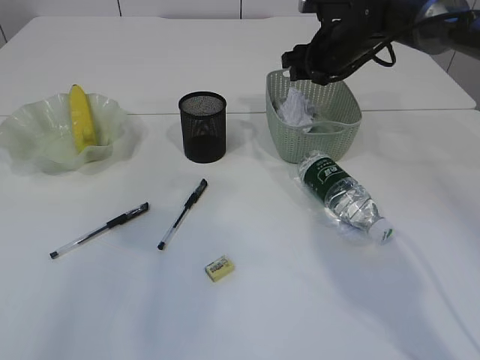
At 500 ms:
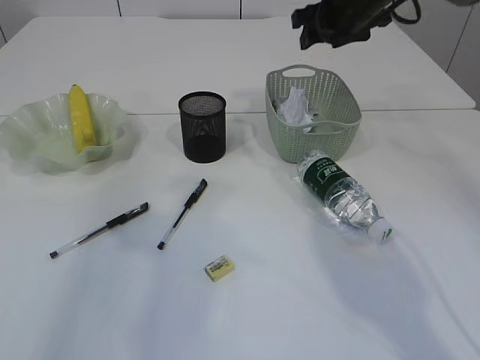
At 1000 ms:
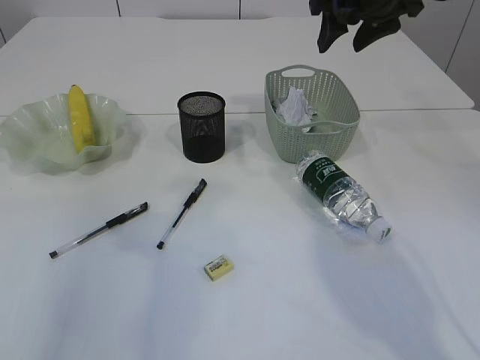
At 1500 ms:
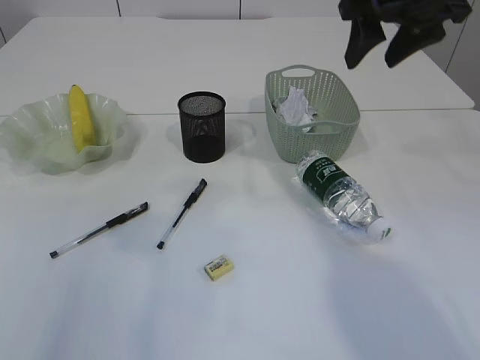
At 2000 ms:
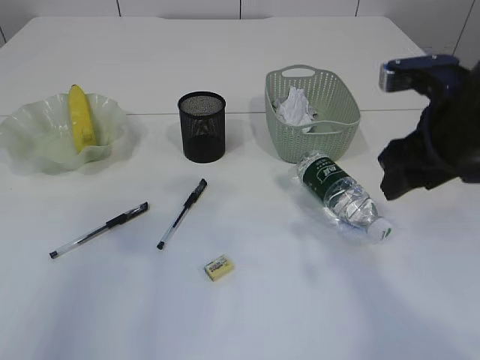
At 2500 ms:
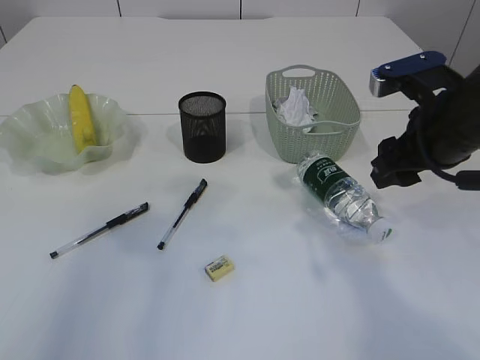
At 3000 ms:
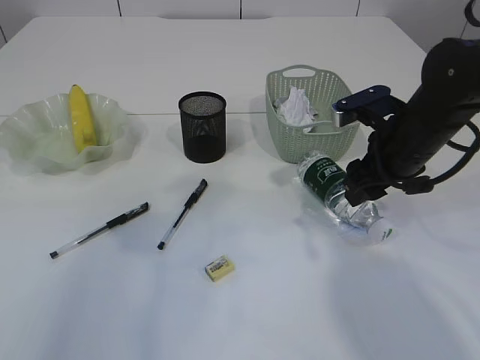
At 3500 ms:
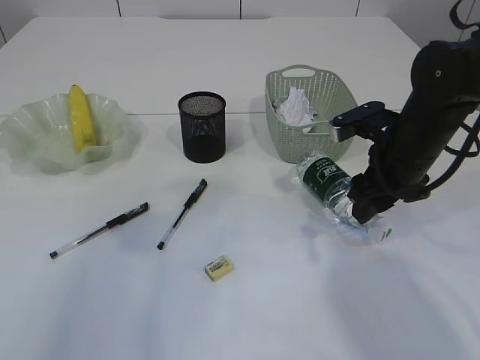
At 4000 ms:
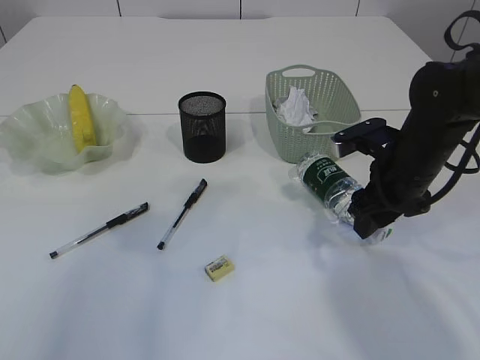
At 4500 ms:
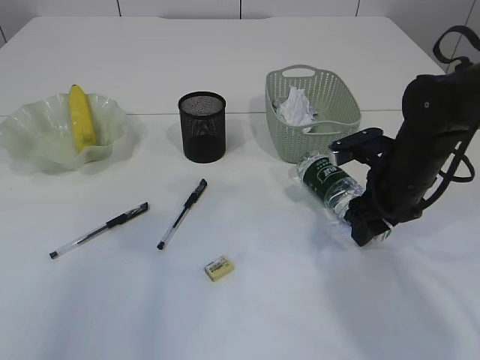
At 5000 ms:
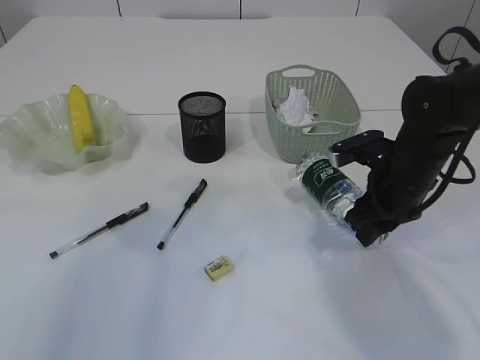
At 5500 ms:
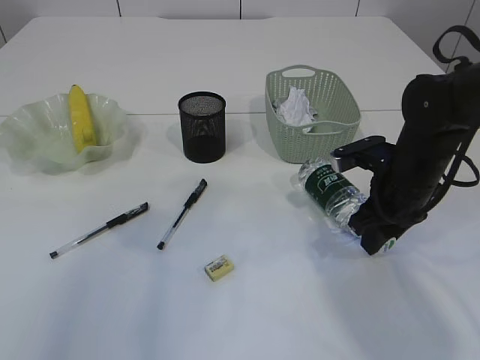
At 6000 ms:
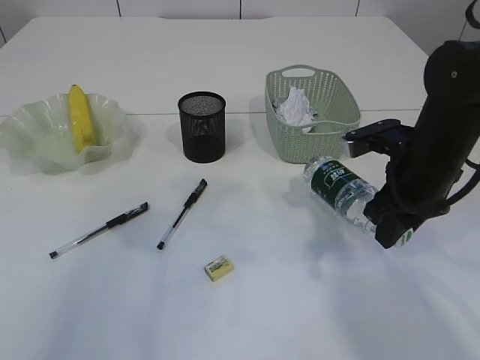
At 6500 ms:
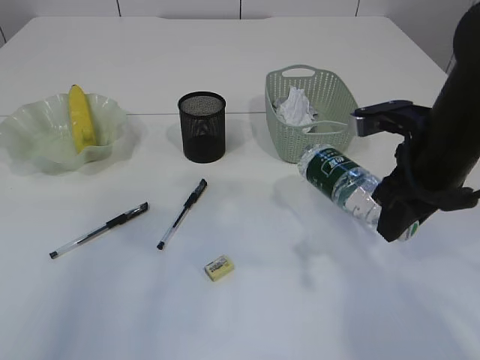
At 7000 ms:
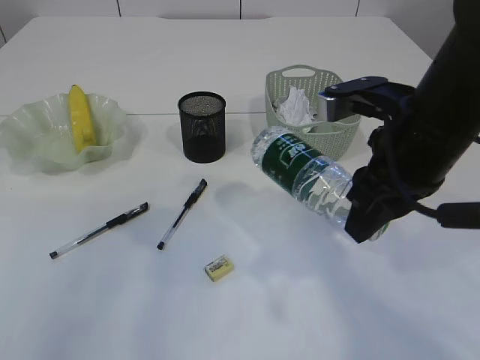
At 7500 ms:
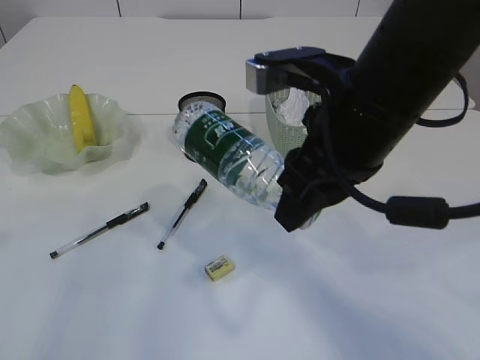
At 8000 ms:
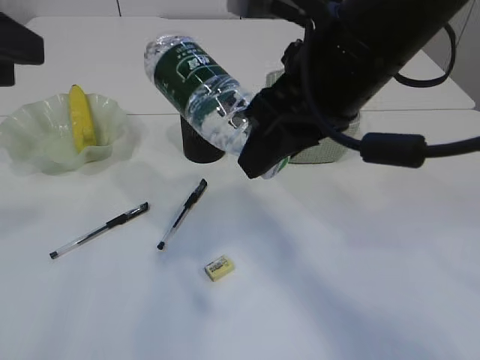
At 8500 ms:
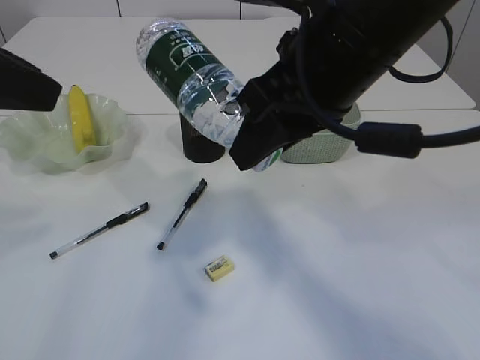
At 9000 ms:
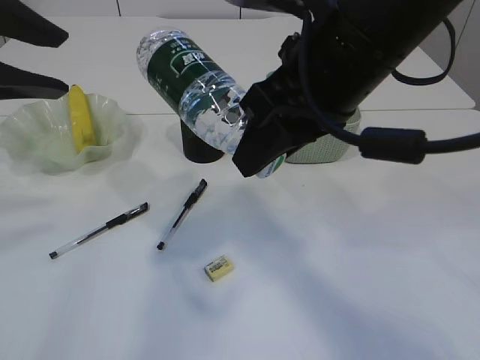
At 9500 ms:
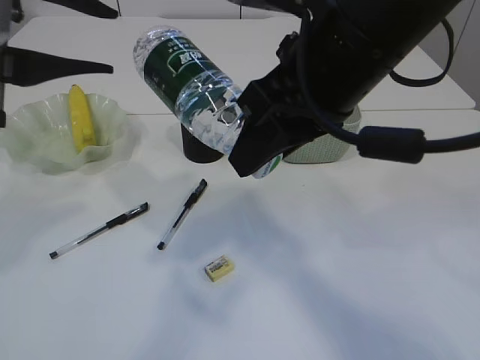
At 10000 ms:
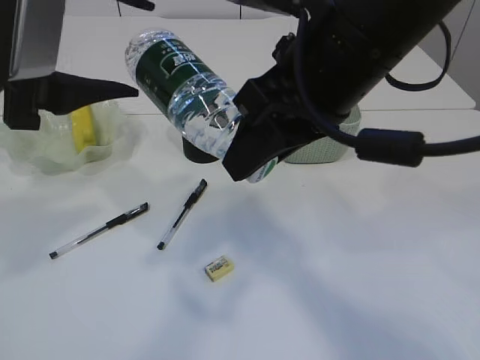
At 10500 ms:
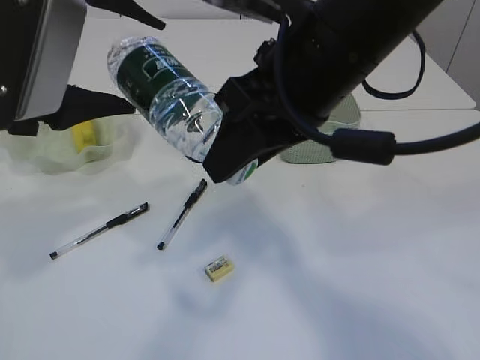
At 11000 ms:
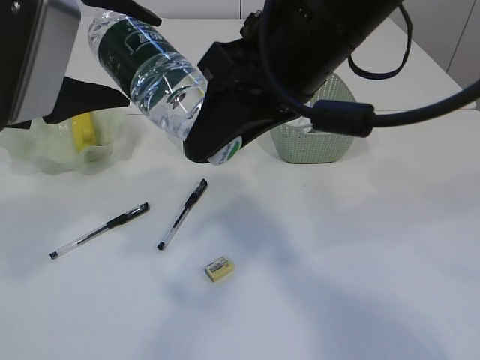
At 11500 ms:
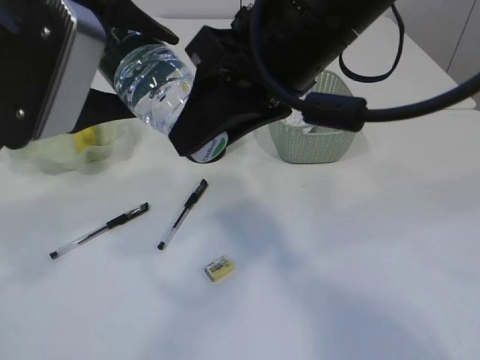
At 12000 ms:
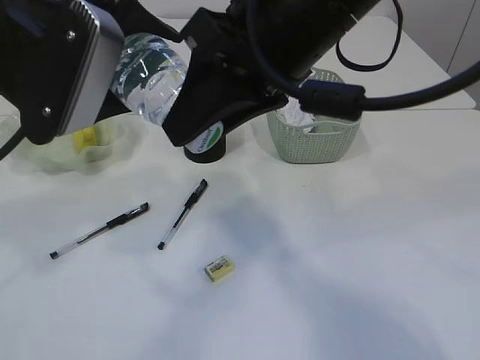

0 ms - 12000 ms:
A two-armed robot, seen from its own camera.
Step, 1000 ms - 6500 ms: Pick up the bottle with the right arm.
0 ms - 2000 ms: The right gripper travels backward by approximately 25 cm.
2000 ms - 4000 ms: The right gripper goes approximately 10 cm downward and forward.
4000 ms - 6000 ms: The right gripper closes its fingers.
6000 ms - 8000 ms: The right gripper goes approximately 20 cm upward, to the left and backward.
8000 ms - 10000 ms: The left gripper moves to the right, approximately 5 cm, and opens up.

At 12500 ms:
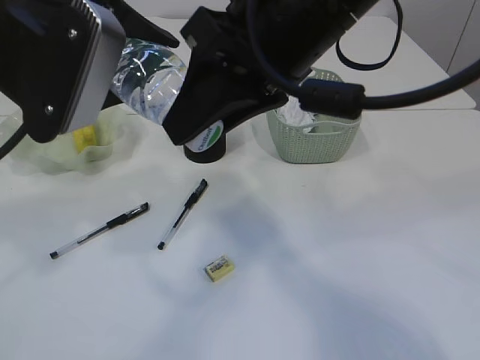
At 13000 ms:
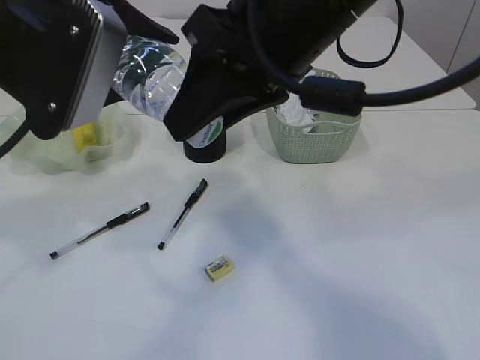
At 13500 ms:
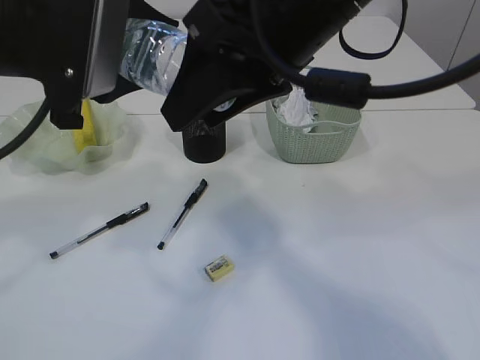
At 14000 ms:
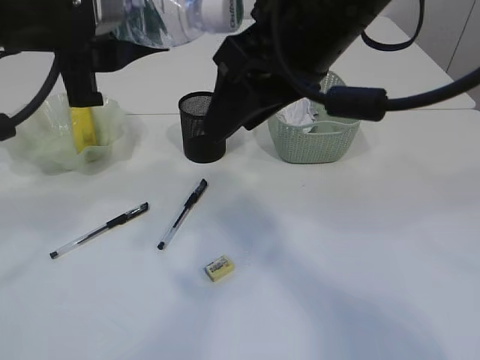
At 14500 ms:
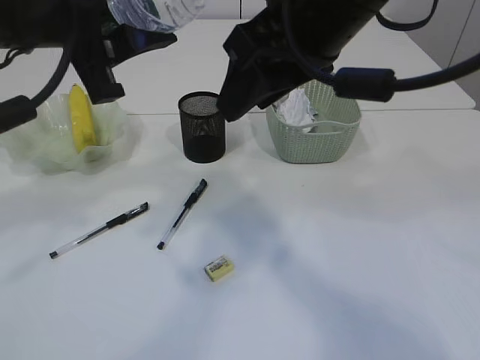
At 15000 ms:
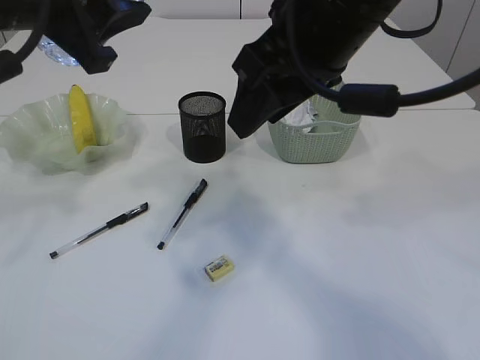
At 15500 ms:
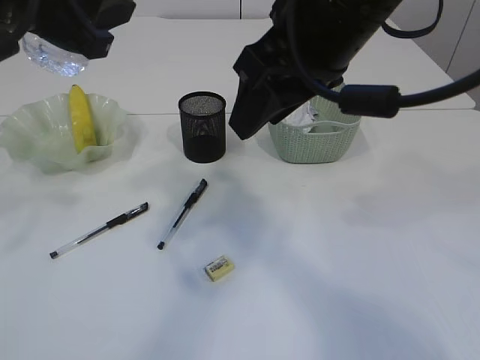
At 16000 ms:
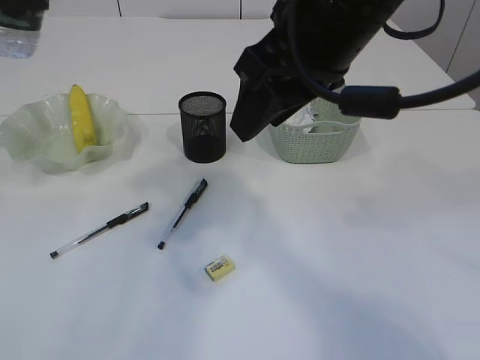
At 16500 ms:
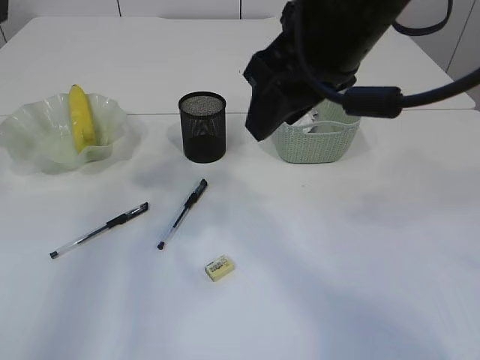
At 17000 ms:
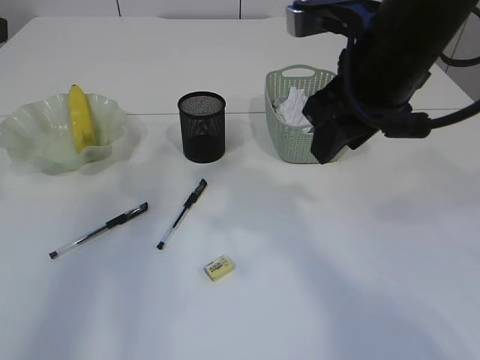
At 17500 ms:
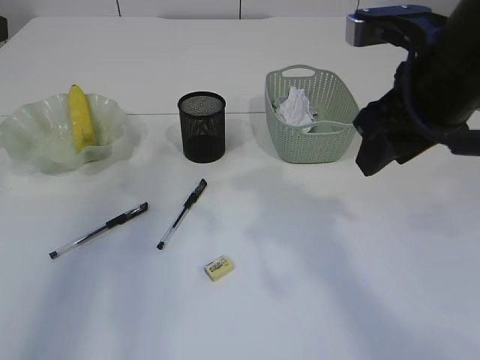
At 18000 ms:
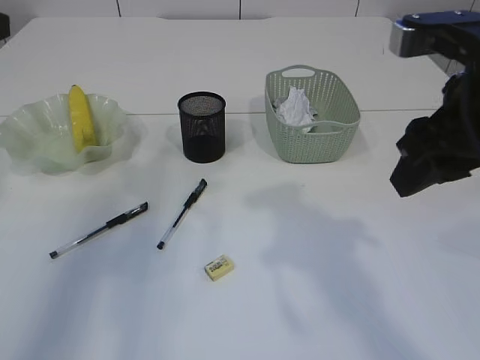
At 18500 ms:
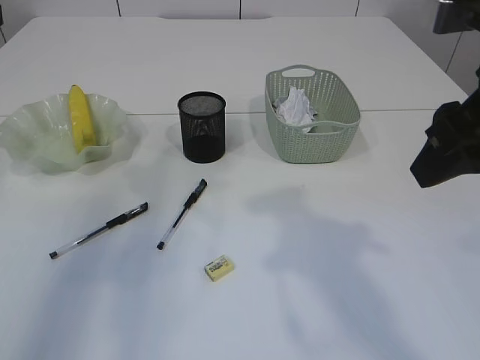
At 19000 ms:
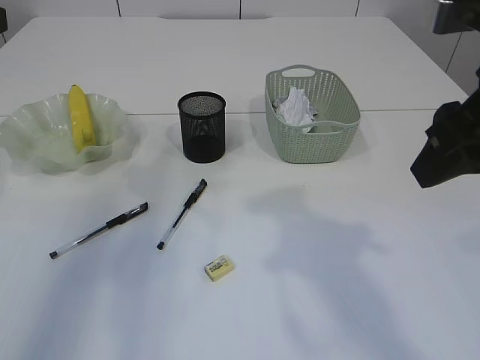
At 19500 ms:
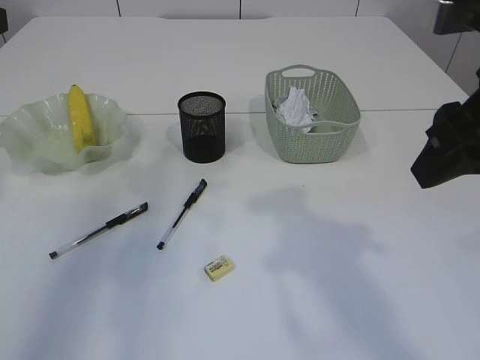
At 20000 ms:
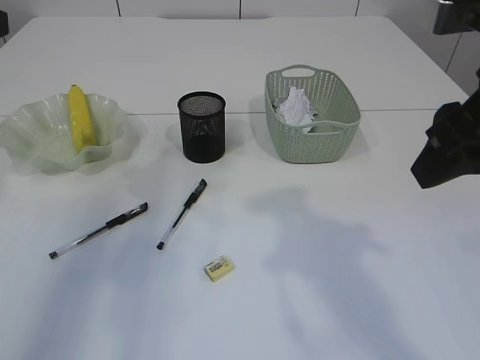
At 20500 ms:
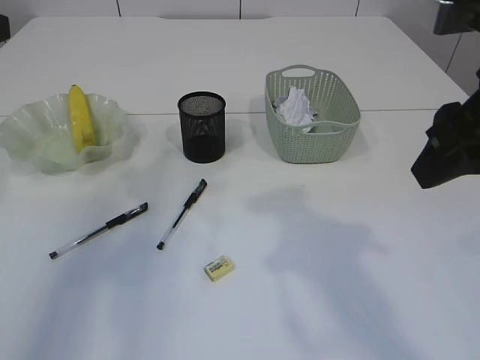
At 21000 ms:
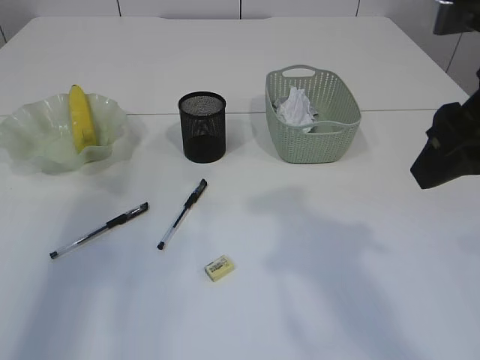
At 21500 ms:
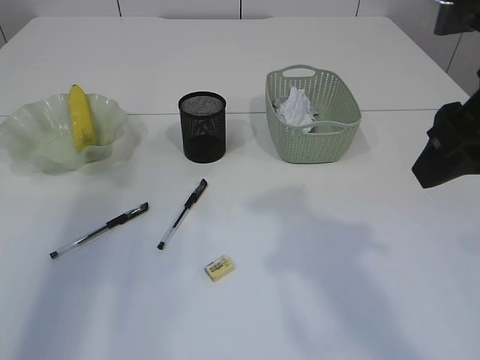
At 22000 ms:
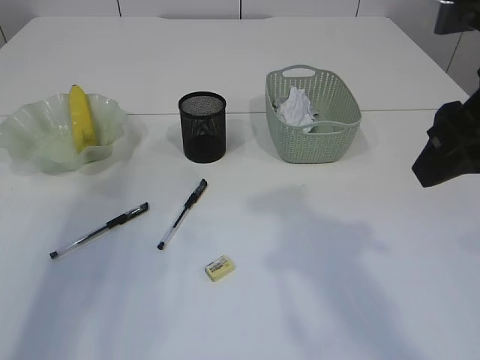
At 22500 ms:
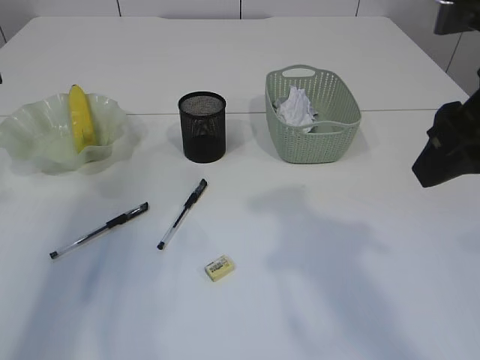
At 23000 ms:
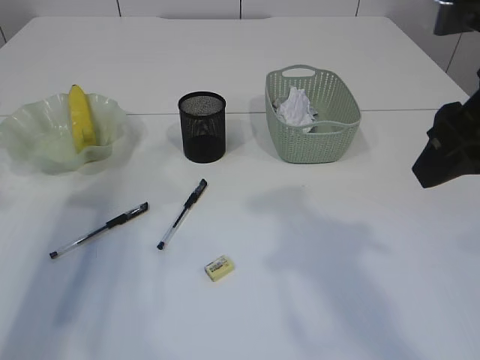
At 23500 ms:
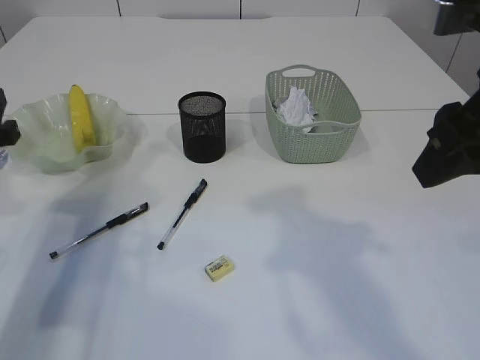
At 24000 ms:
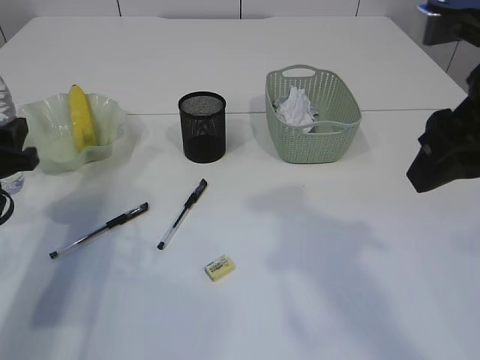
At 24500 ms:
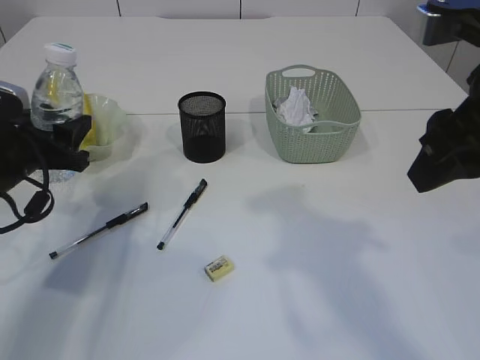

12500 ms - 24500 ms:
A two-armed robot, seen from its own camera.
14500 ms - 16500 ms: The left gripper is displaced to the left by about 10 cm.
16500 ms - 18500 ms: The right gripper travels to the right and backward by about 15 cm.
18500 ms - 20500 ms: The two grippers keep their place.
22500 ms - 24500 ms: The left gripper is displaced downward and forward by some 15 cm.

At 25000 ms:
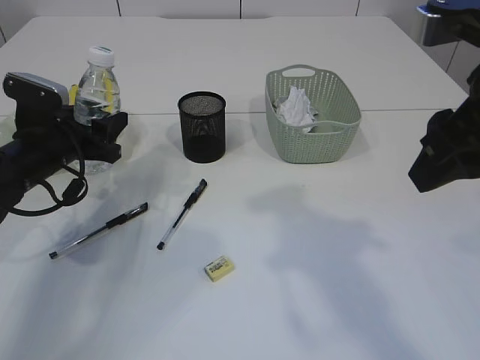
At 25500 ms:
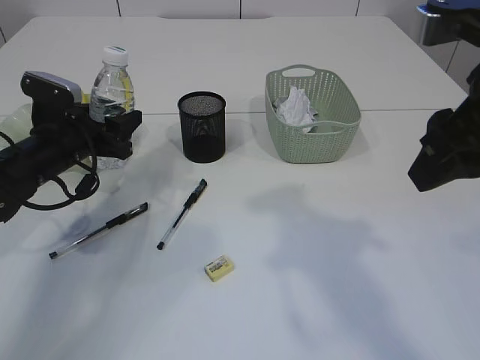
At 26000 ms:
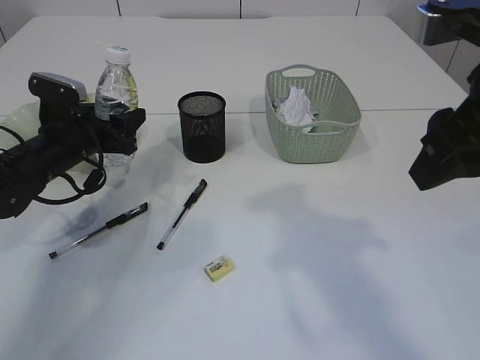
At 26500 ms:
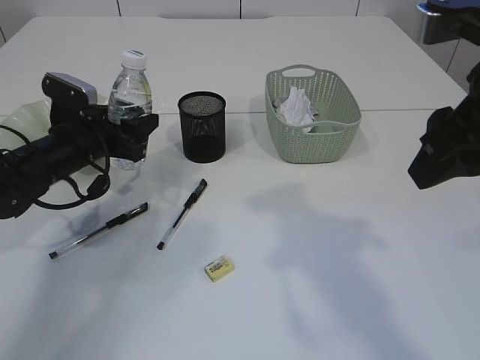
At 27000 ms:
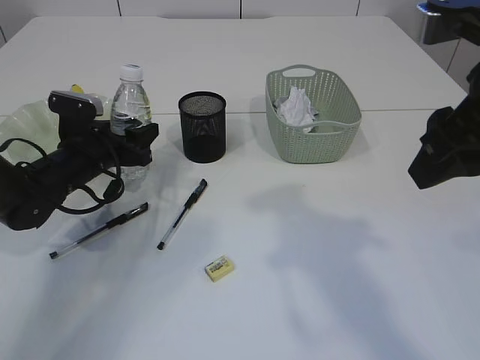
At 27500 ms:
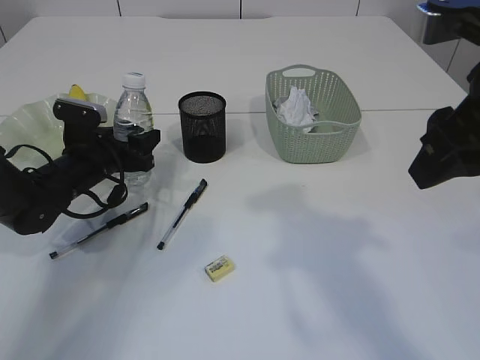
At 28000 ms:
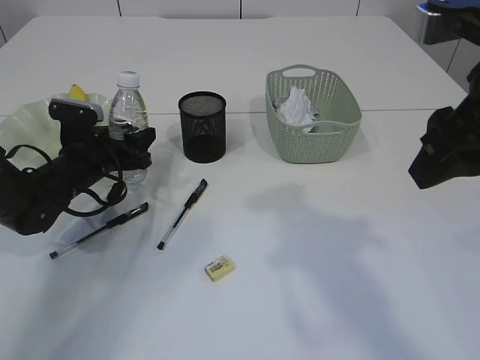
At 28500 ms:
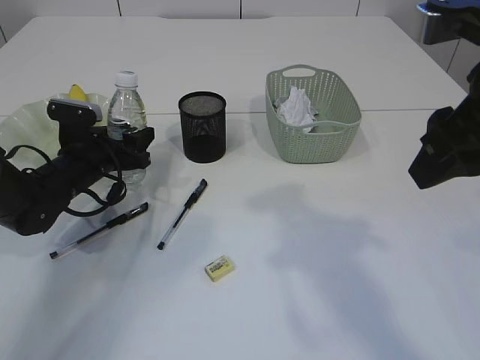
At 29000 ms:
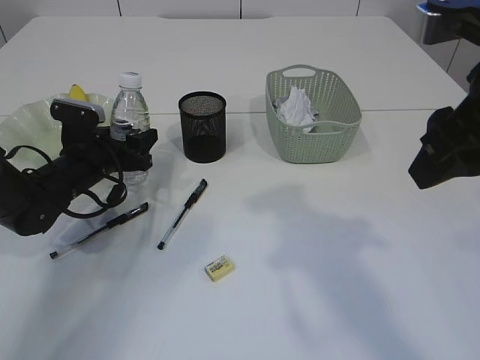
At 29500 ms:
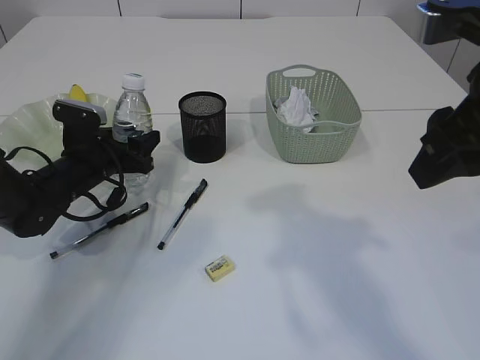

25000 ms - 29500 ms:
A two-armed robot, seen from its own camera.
25000 ms - 27000 ms: The left gripper ends up roughly 5 cm from where it was.
27000 ms - 29500 ms: The grippers make only small movements.
